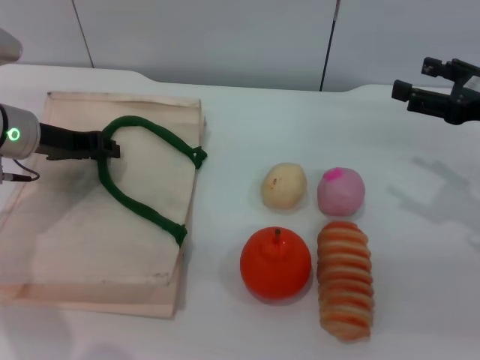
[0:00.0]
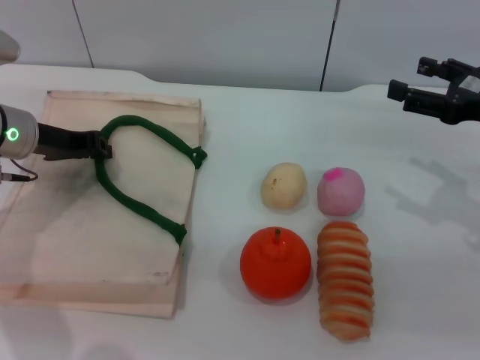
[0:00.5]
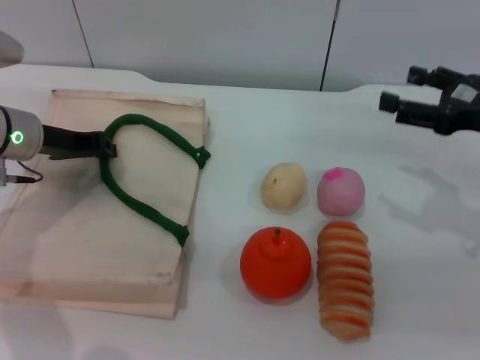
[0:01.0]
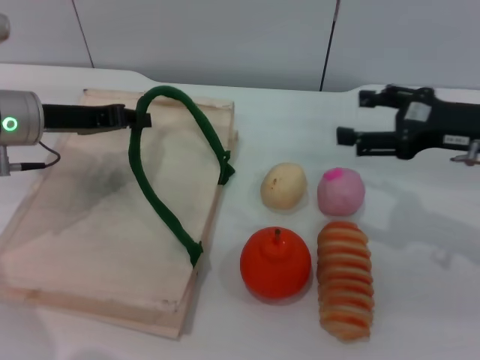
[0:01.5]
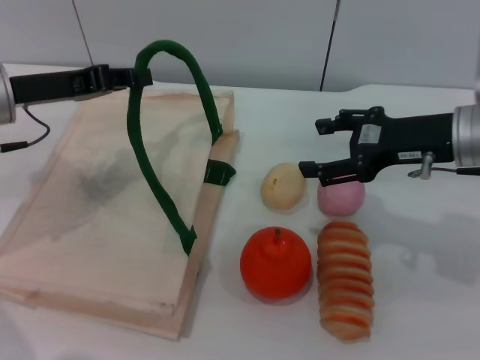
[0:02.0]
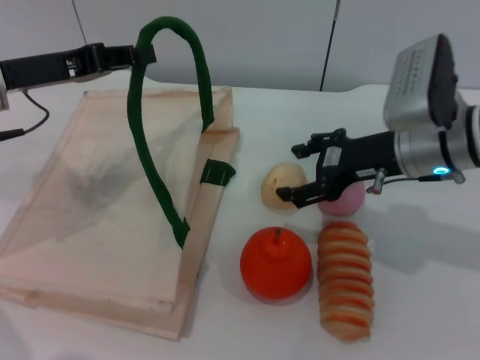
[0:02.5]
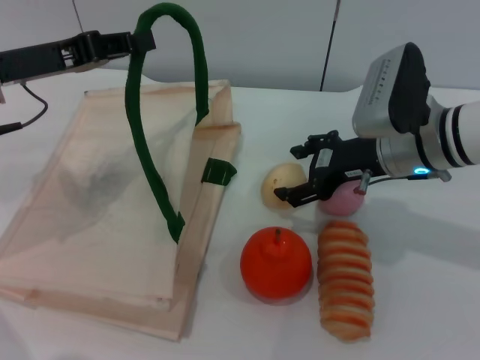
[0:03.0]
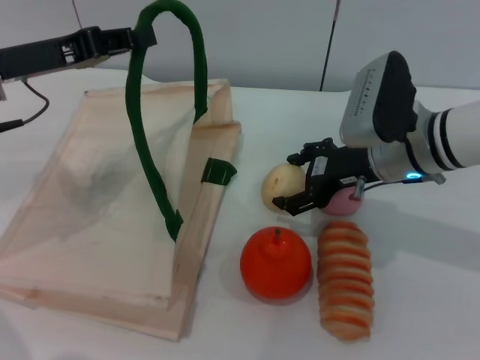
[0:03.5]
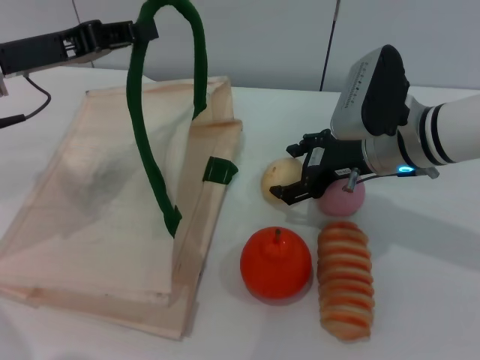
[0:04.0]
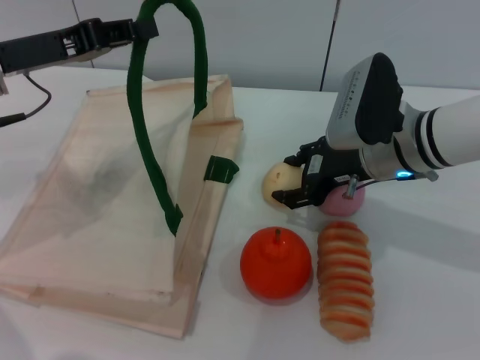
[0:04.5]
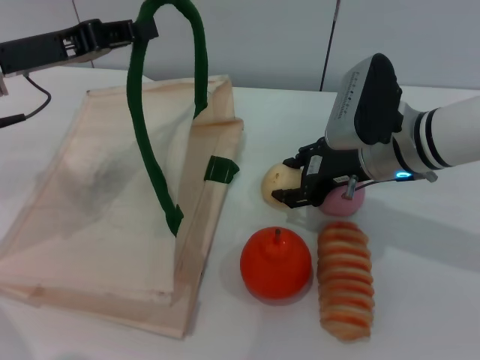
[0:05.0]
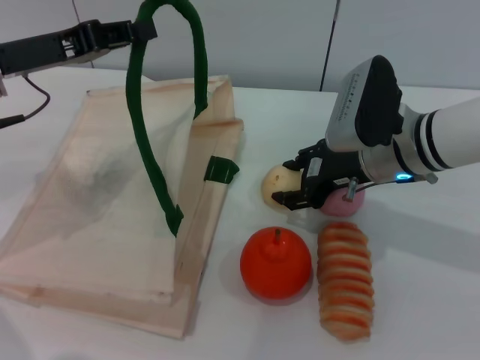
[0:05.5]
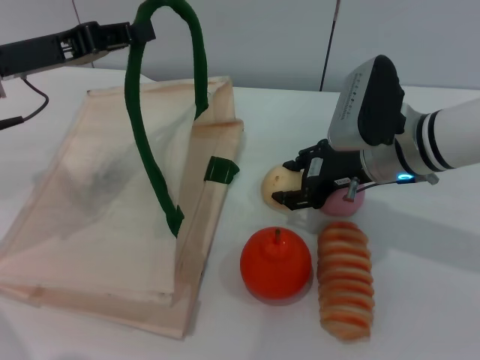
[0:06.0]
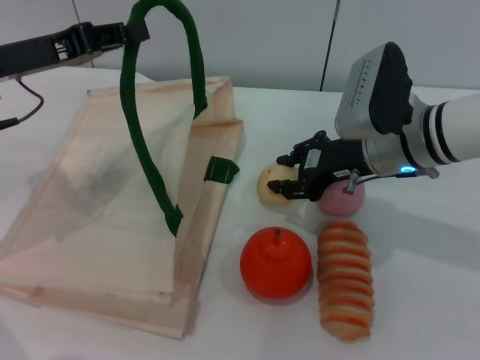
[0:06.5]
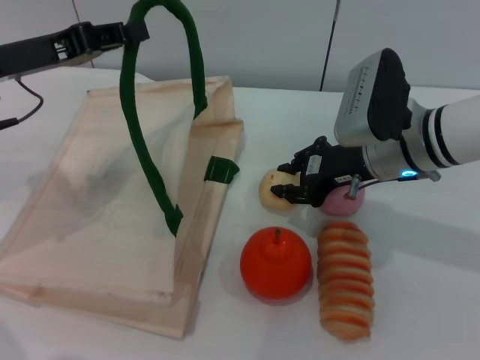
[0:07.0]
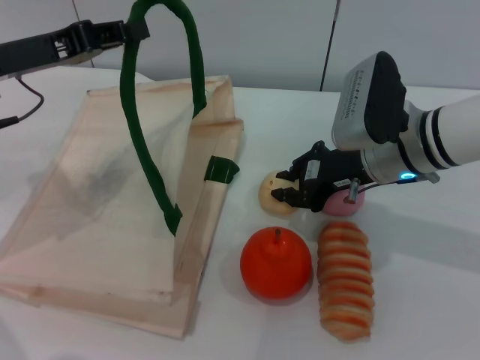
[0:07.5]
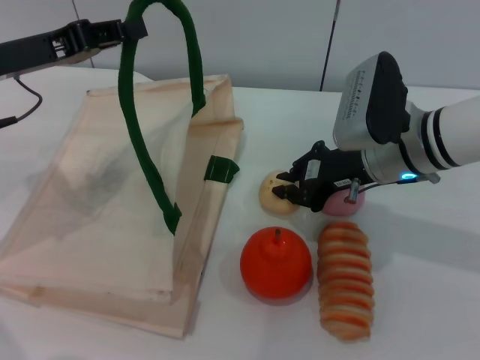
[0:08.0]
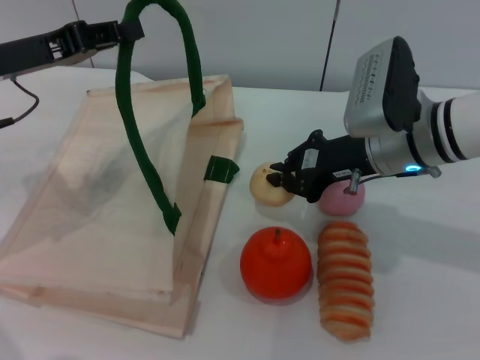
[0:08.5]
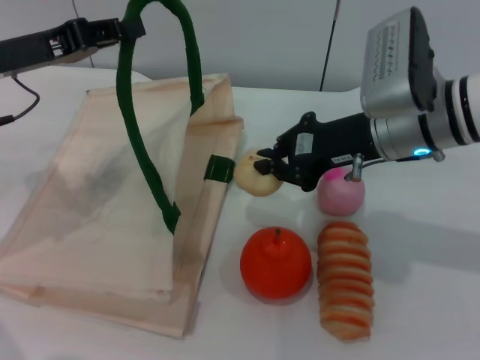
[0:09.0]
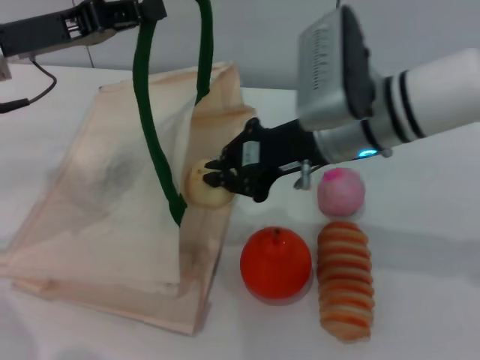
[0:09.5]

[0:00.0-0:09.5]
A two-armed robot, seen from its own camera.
Task of the whole recording: pick up the egg yolk pastry from the table and place it in the white handbag.
Step, 0:01.0 to 0:08.5: Pick up the egg yolk pastry with the right gripper.
0:00.0 to 0:02.0: The left gripper moves roughly 5 cm, and closes its fingers. The right gripper travels to the left by about 10 cm.
0:02.0 to 0:04.0: The right gripper goes approximately 5 cm to the left.
0:04.0 to 0:05.5: The right gripper closes up.
0:05.5 to 0:07.5: The right gripper closes its fingers.
0:07.5 to 0:09.5: The right gripper travels upward and to the left by about 10 cm.

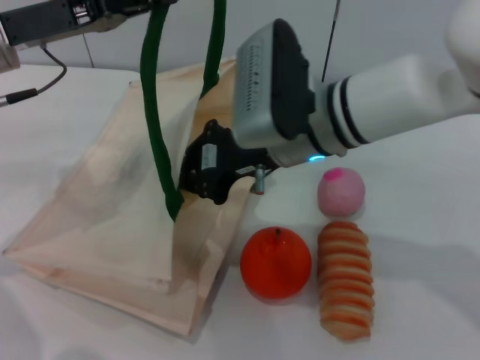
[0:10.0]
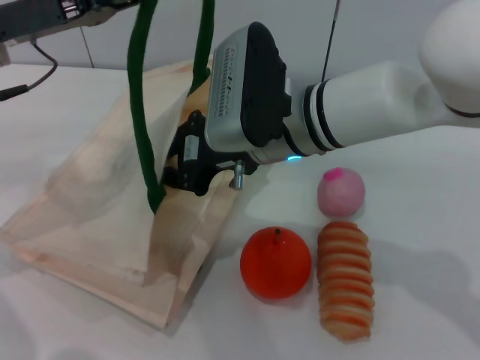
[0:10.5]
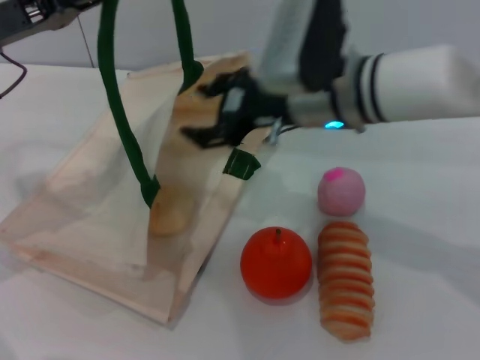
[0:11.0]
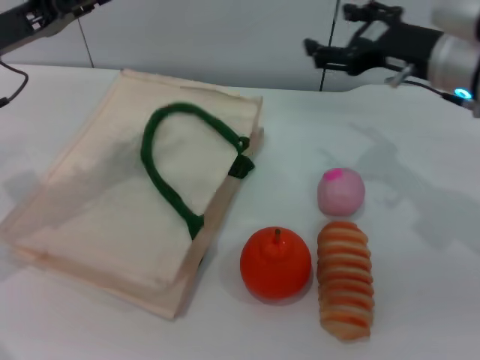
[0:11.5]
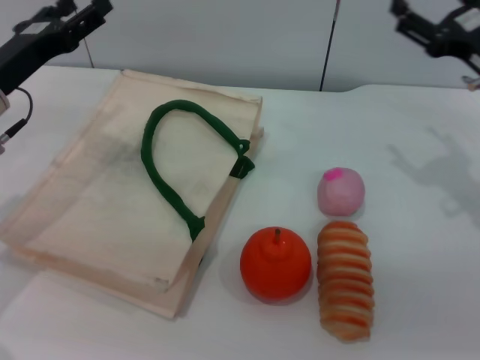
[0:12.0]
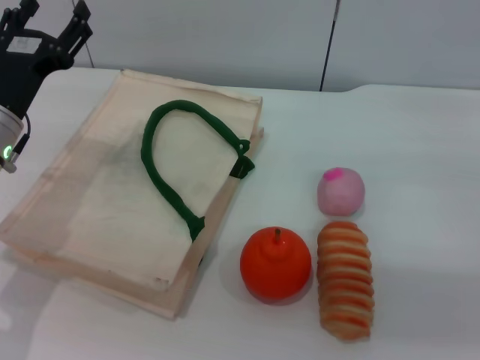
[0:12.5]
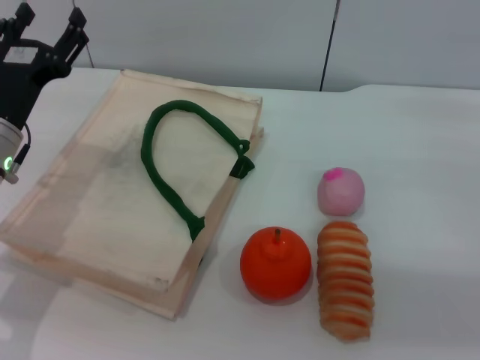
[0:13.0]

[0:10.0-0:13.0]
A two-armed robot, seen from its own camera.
Task of the whole recording: pick up the egg yolk pastry from the table and place it in the white handbag.
Step, 0:11.5 to 0:12.0: Lower the woven bag with the left gripper to close it.
0:10.0 to 0:11.5: The right gripper is displaced to the right by approximately 15 cm, and opens.
0:11.5 to 0:13.0: The right gripper shifts some 20 cm to the right, backward and downward. Meanwhile the left gripper heads downward, covering some 10 cm, and opens its fingers.
